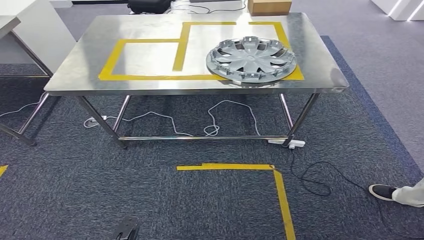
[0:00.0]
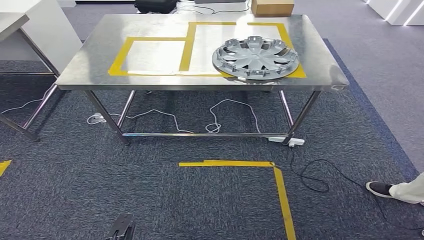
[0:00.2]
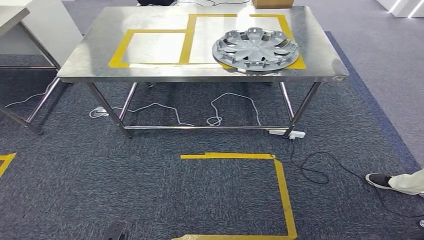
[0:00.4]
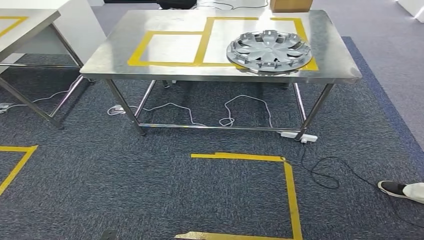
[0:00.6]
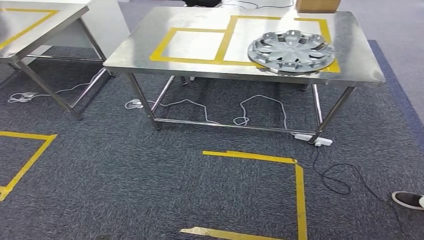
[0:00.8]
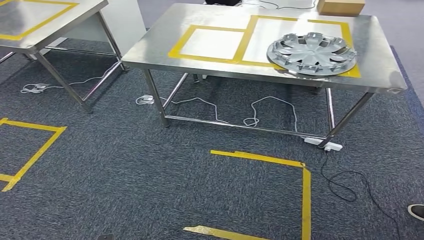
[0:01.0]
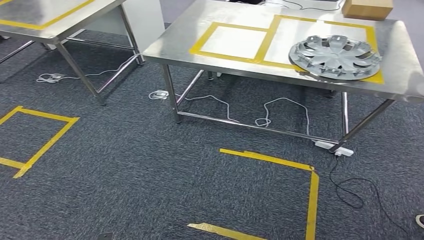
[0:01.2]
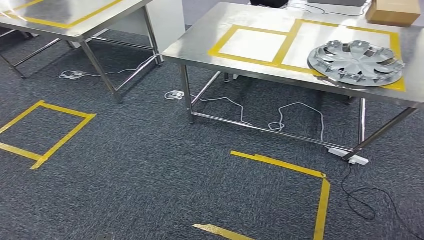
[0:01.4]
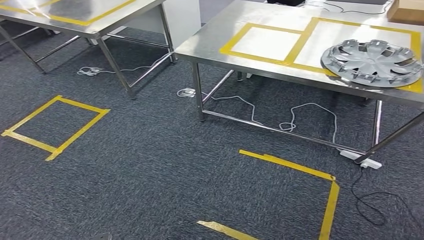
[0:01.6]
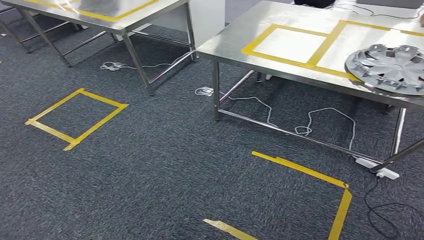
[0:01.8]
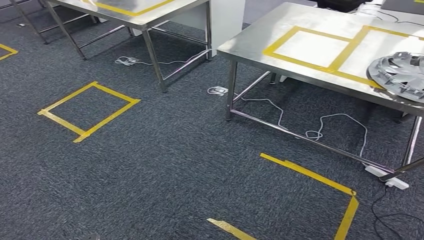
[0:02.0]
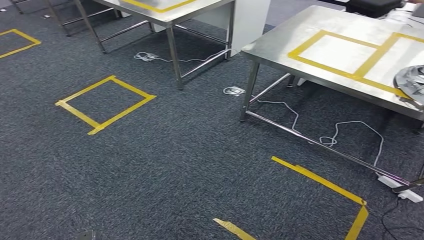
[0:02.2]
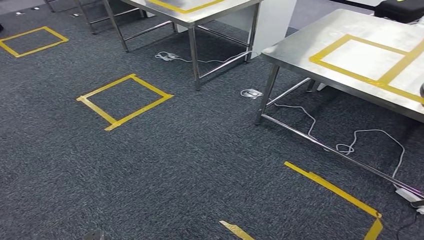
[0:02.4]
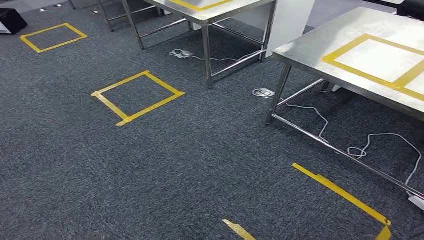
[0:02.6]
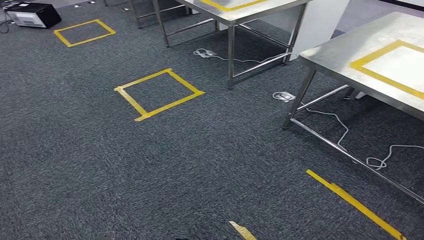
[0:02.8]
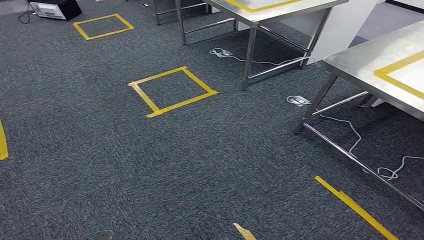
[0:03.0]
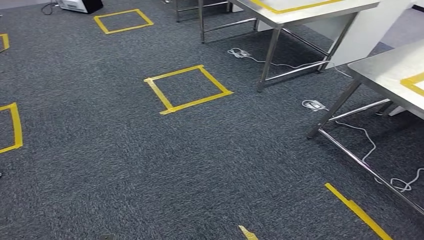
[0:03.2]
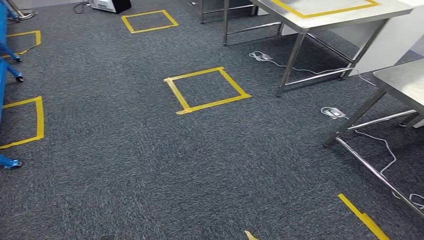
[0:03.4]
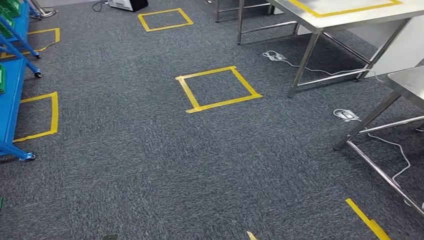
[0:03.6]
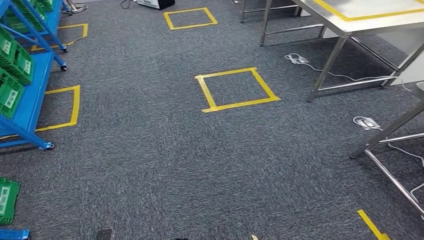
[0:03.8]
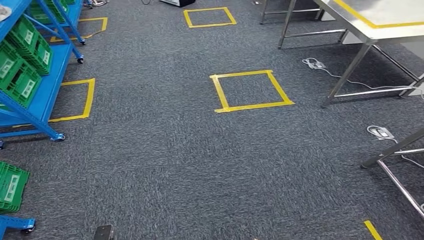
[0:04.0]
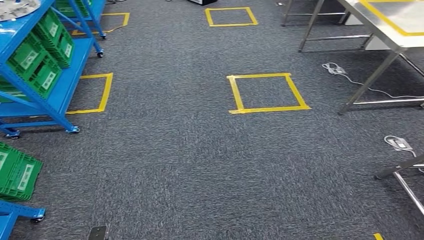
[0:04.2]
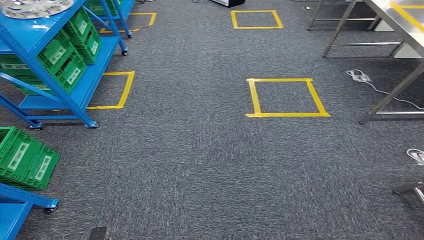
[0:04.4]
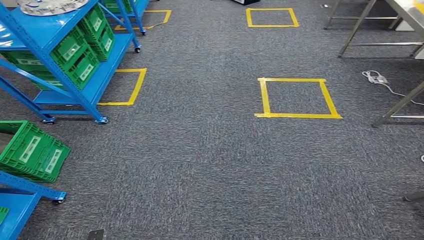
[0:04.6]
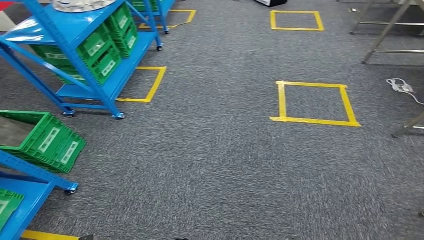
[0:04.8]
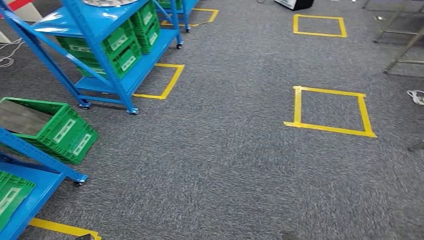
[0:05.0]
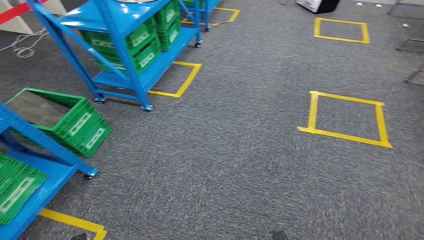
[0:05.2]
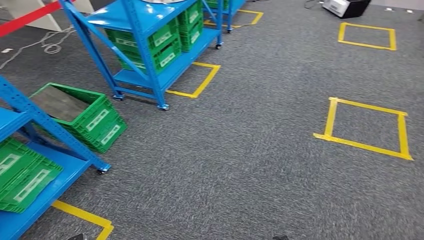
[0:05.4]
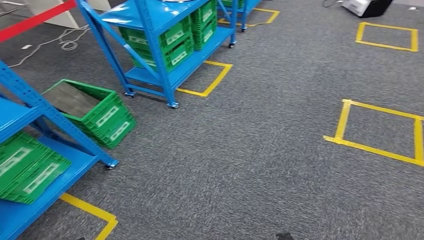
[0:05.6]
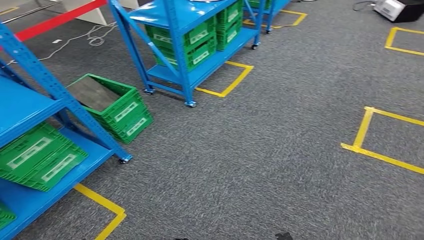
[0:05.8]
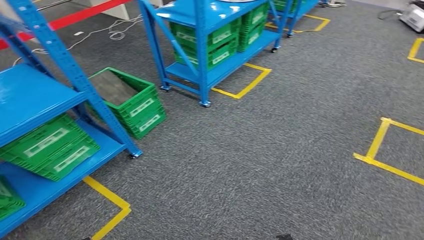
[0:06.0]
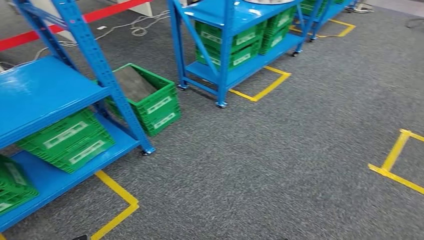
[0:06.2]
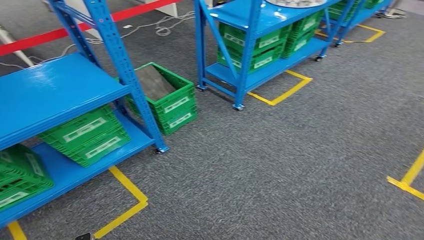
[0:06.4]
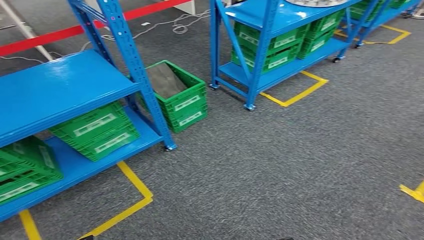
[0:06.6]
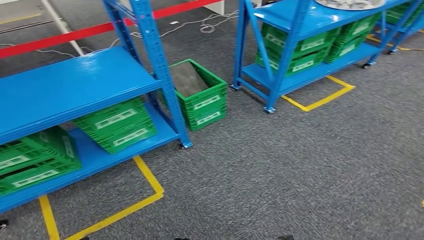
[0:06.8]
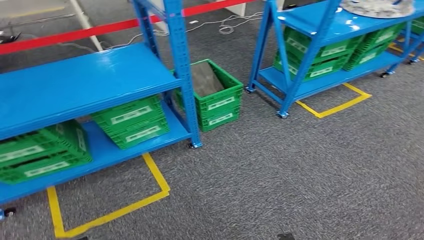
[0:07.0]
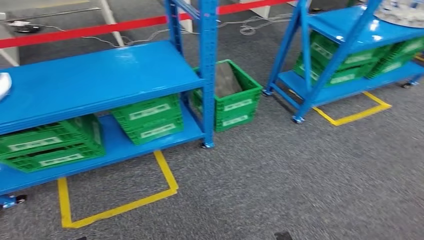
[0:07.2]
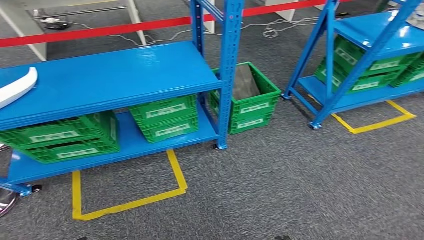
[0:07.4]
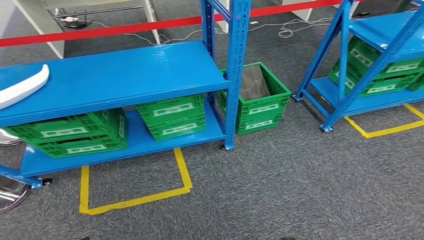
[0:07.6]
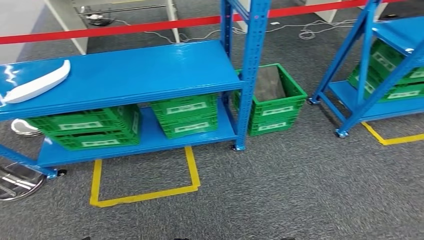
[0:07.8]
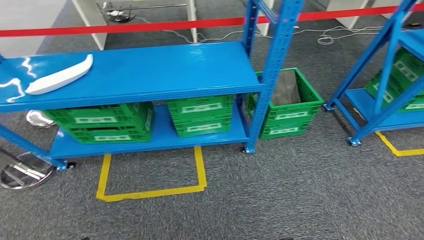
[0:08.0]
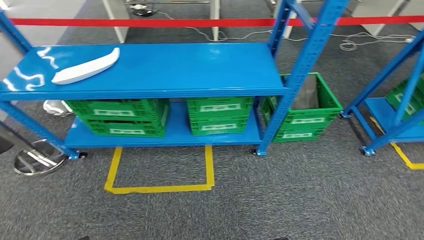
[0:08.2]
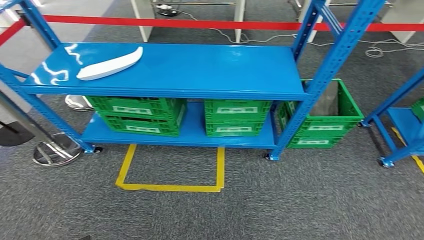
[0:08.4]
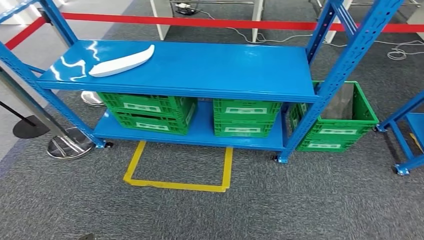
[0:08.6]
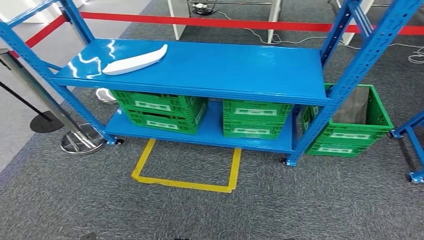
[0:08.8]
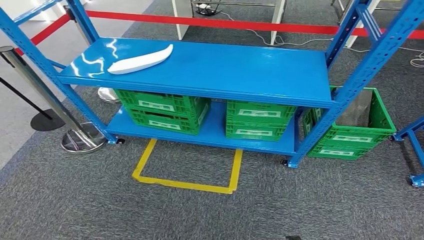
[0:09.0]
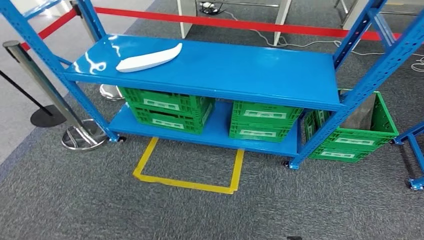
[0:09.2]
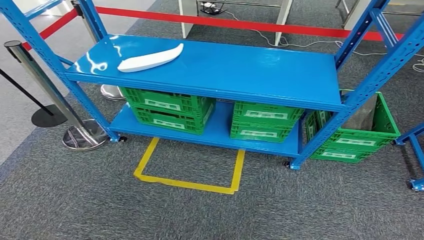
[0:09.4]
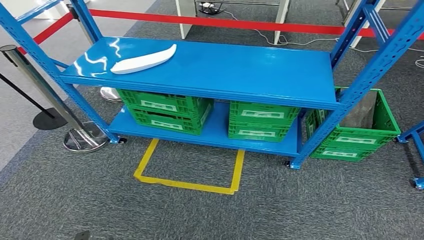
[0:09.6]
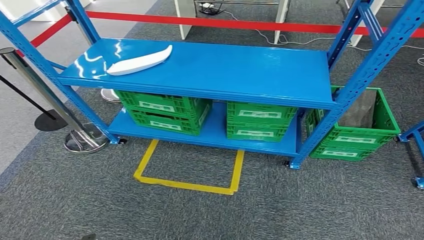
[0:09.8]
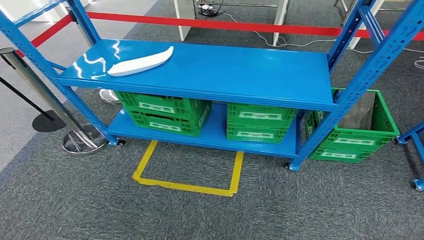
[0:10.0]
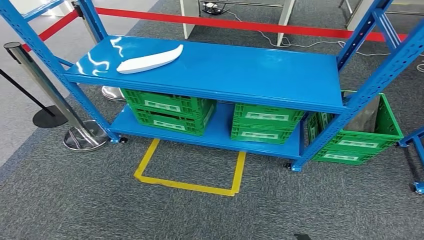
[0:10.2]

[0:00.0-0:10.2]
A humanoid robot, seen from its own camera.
Step, 0:00.0 to 0:10.2: Move to the initial position at the workbench.

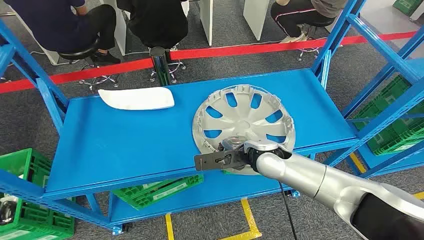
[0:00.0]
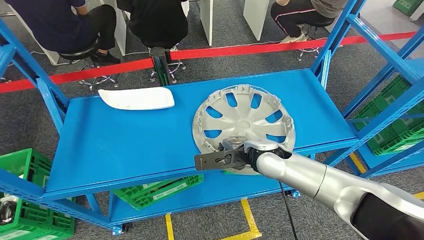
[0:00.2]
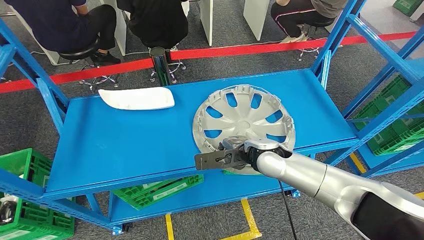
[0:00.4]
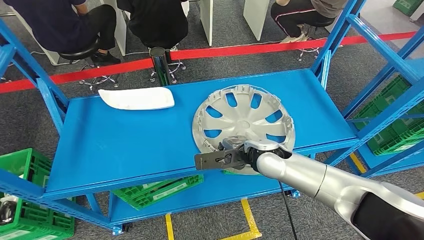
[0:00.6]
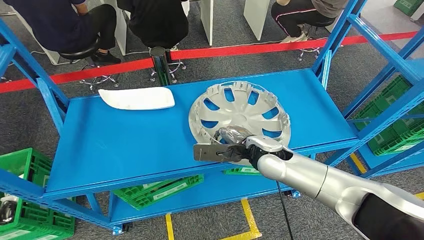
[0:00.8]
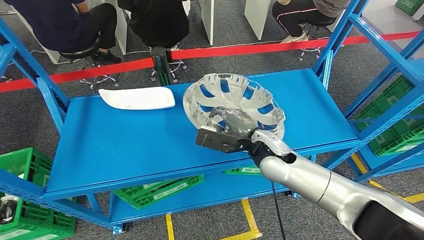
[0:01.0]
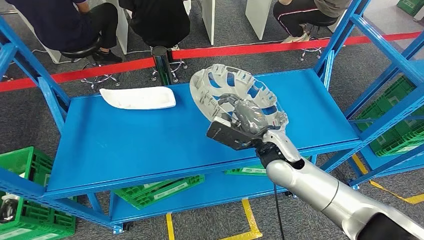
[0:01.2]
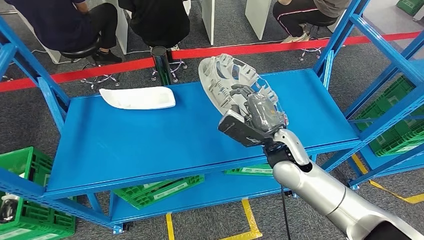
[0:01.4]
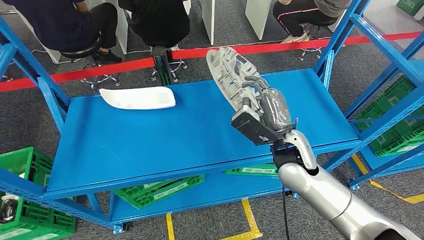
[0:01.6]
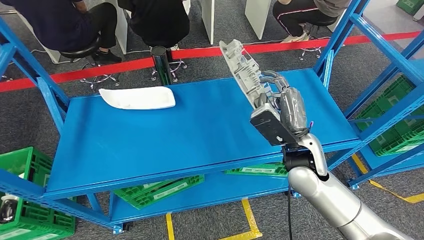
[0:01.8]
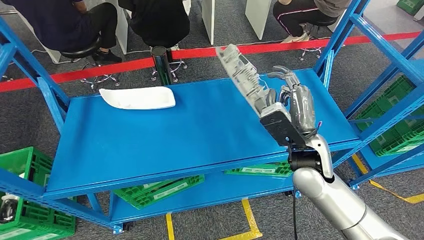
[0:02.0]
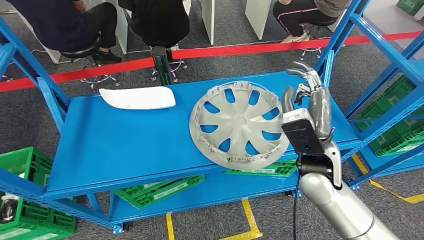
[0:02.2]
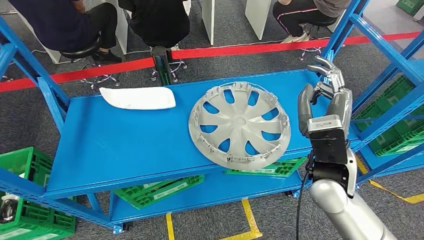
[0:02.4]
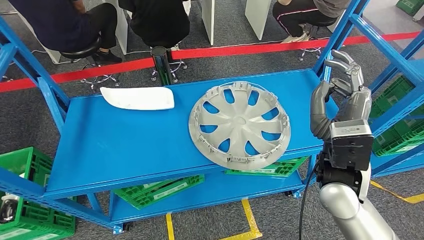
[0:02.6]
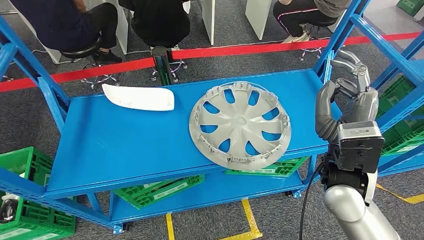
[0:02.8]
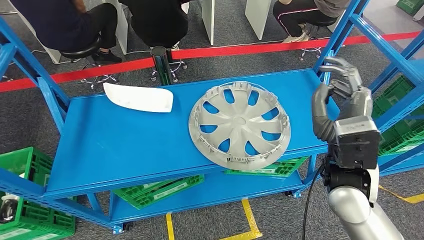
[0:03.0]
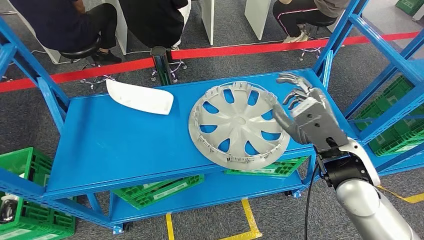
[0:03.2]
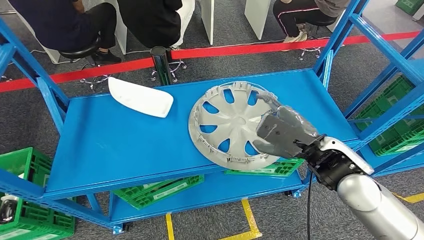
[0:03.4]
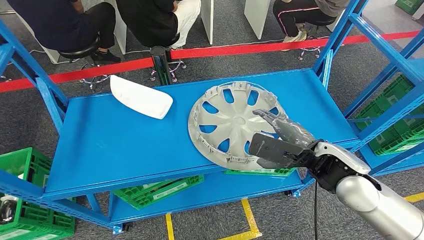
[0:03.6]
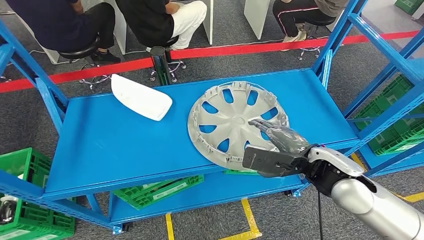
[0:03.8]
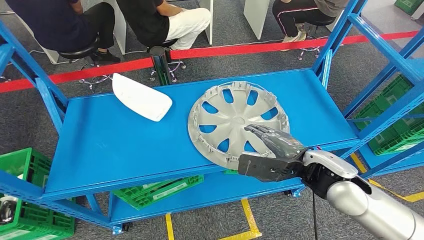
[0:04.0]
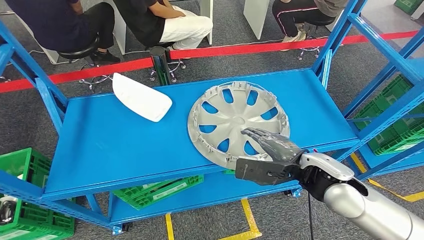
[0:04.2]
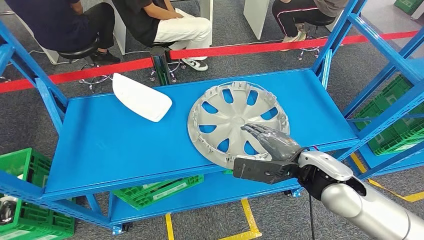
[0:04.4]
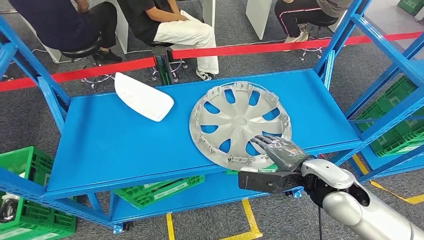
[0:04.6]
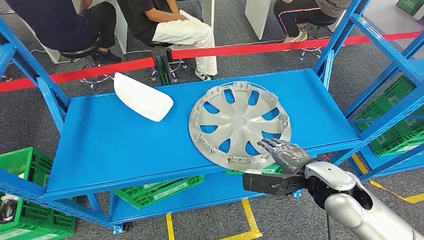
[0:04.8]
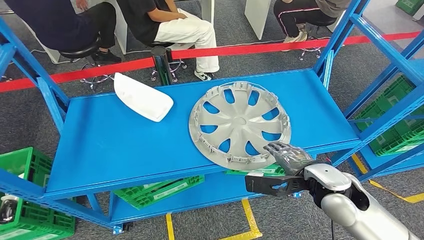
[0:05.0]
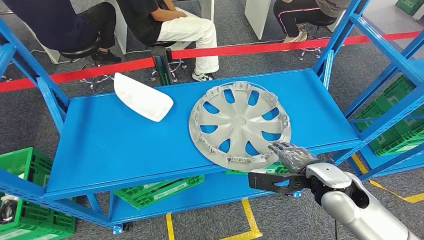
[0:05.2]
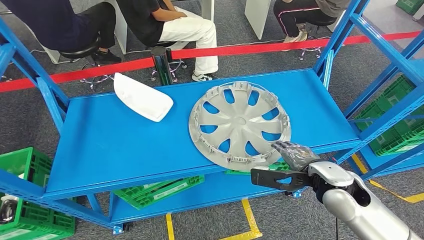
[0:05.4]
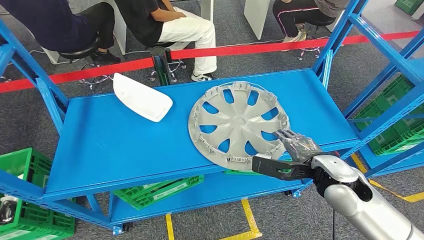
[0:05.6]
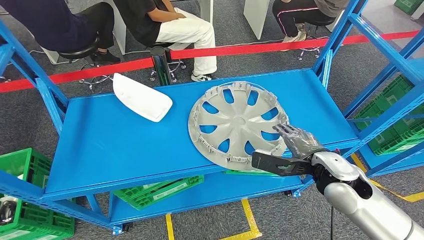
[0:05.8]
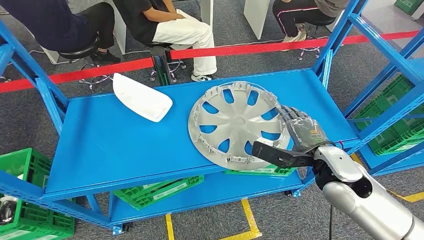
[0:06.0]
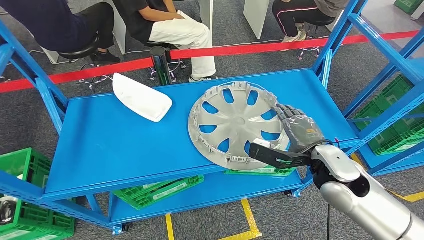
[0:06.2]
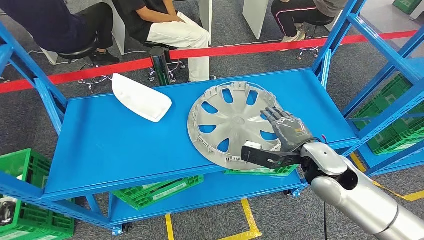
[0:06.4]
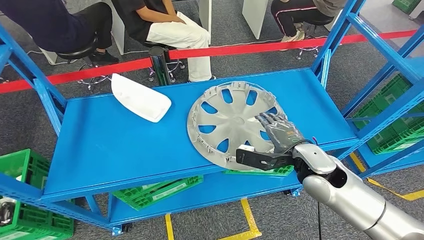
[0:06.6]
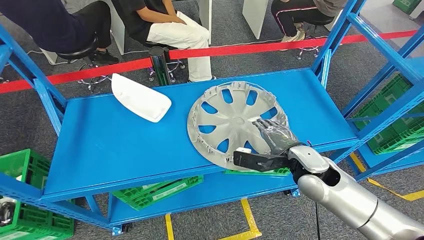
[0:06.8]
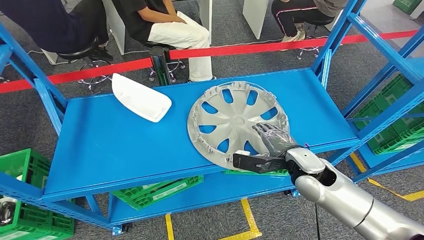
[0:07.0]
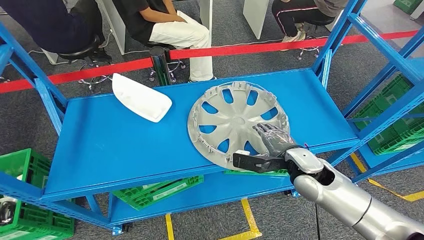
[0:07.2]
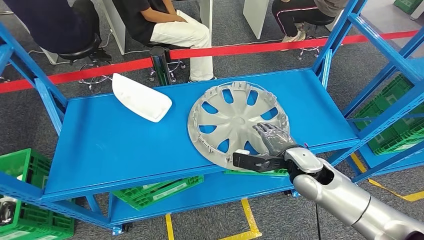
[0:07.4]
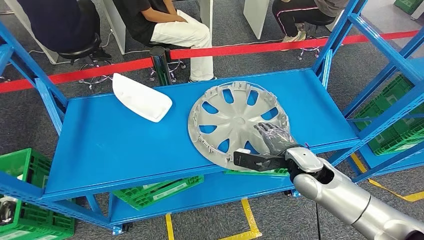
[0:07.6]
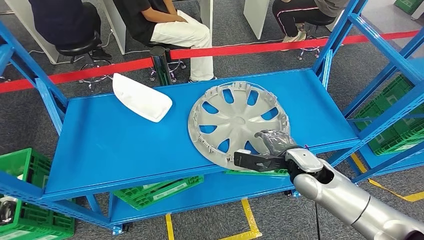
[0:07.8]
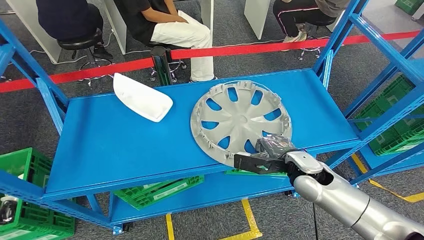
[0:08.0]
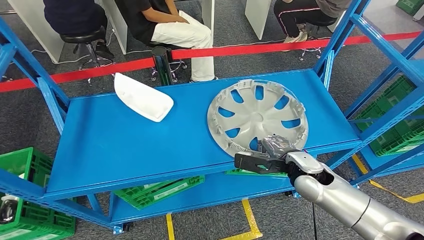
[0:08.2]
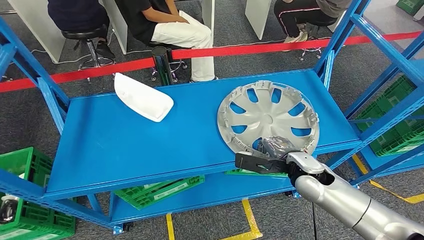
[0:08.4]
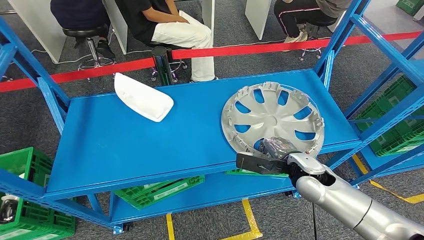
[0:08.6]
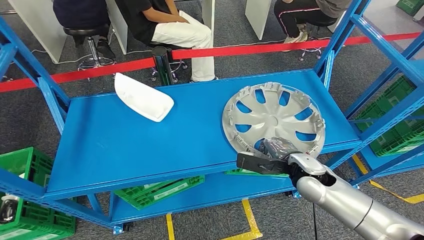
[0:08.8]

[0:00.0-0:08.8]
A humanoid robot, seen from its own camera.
0:01.4 to 0:03.0: The right hand is displaced backward, upward and to the right by about 10 cm.
0:04.4 to 0:05.8: The right hand ends up some 5 cm from where it was.
0:05.8 to 0:07.4: The right hand ends up roughly 5 cm from where it was.
